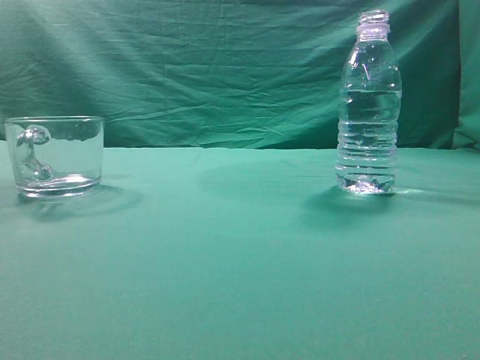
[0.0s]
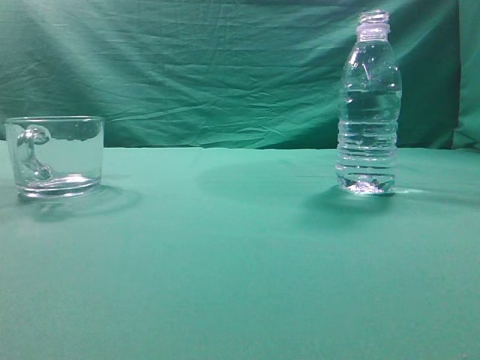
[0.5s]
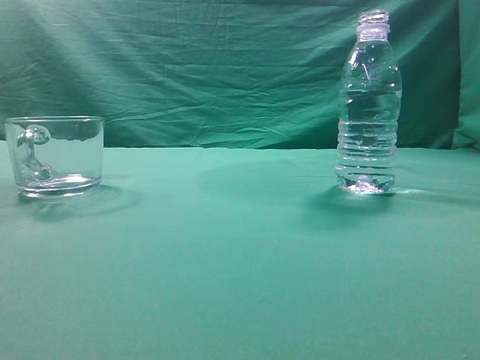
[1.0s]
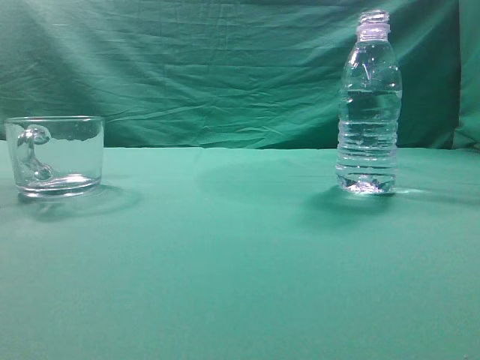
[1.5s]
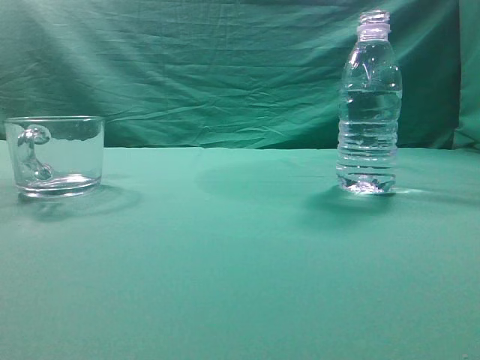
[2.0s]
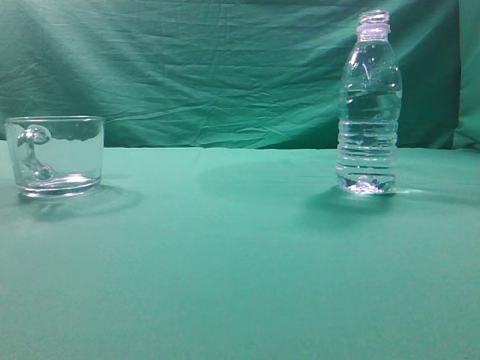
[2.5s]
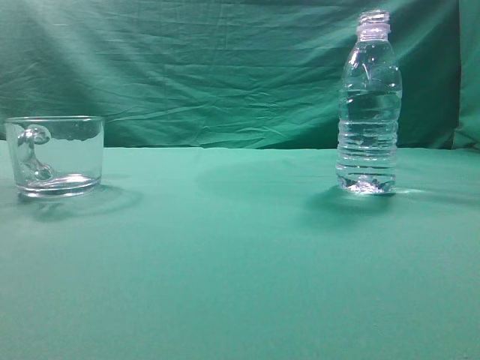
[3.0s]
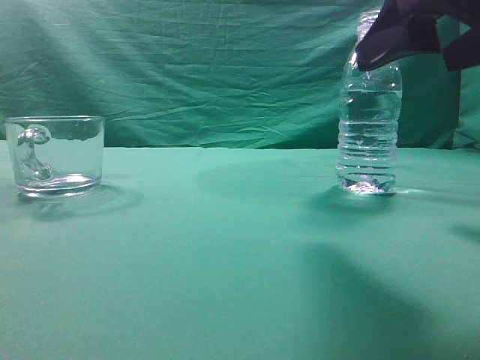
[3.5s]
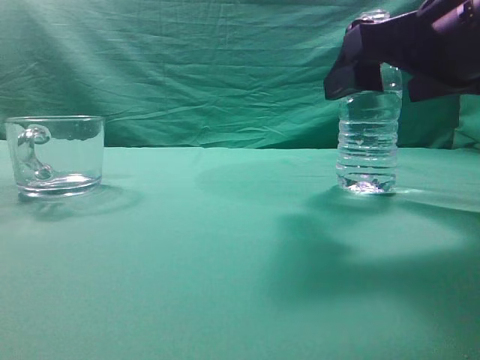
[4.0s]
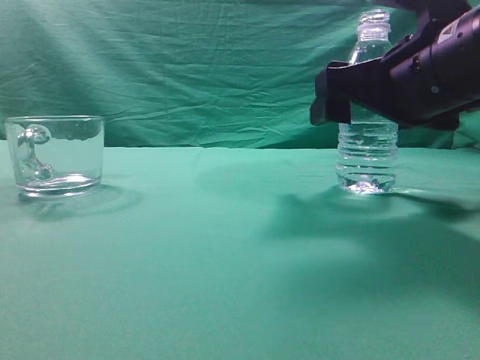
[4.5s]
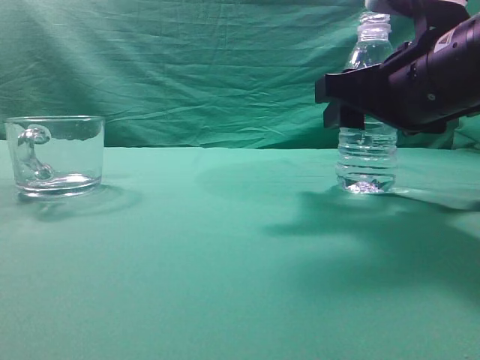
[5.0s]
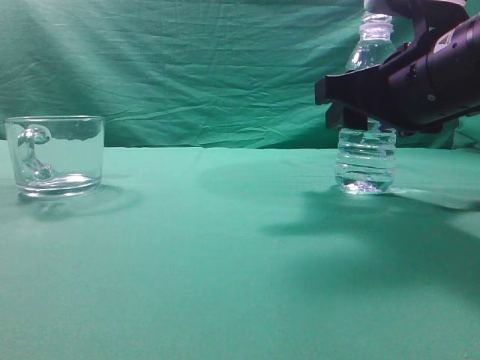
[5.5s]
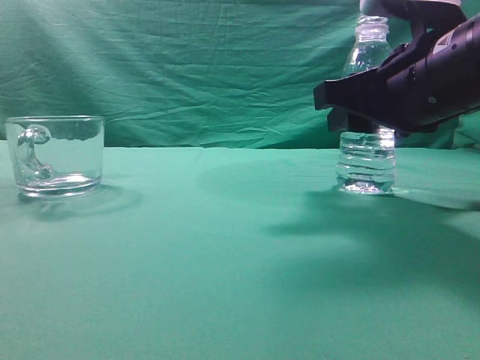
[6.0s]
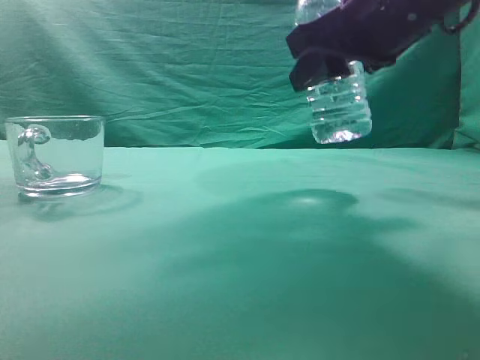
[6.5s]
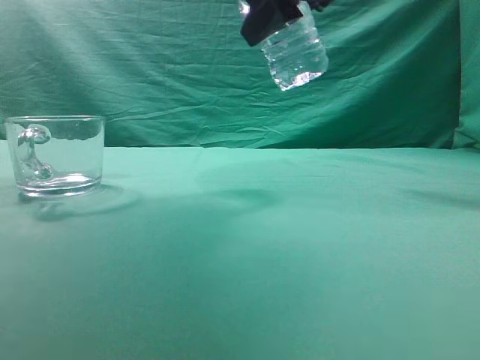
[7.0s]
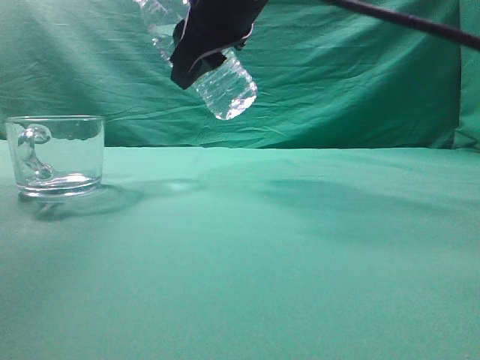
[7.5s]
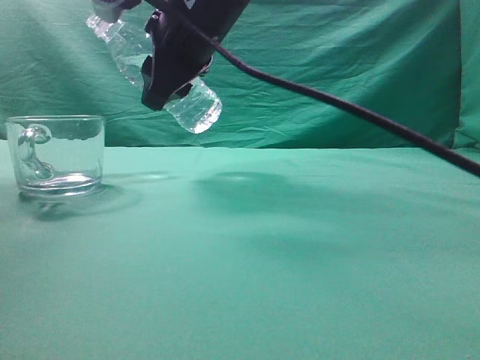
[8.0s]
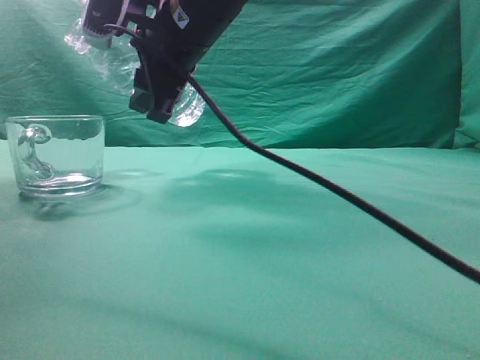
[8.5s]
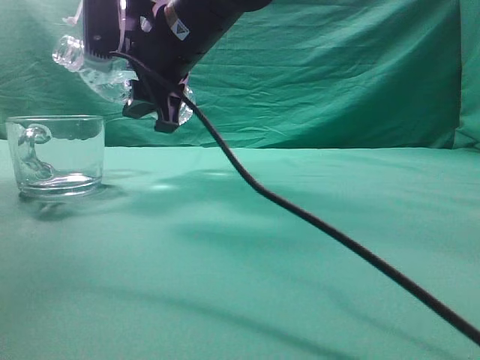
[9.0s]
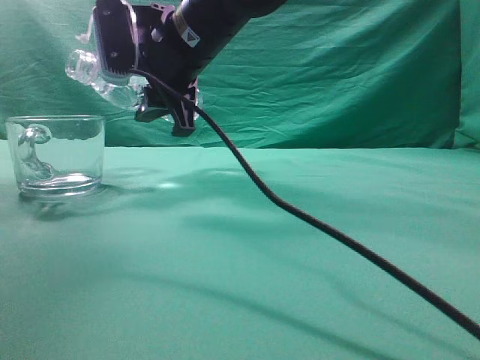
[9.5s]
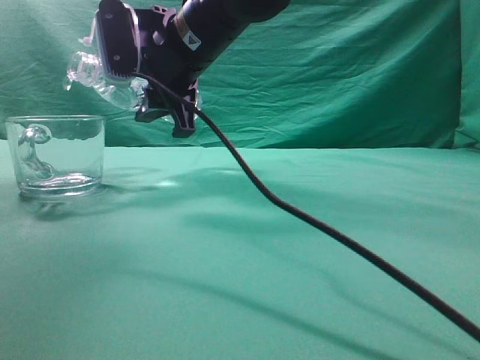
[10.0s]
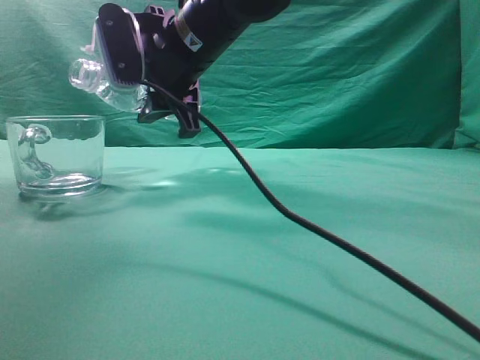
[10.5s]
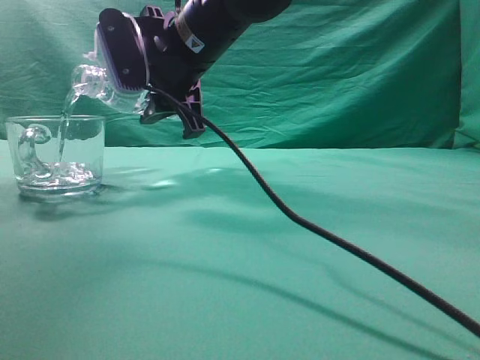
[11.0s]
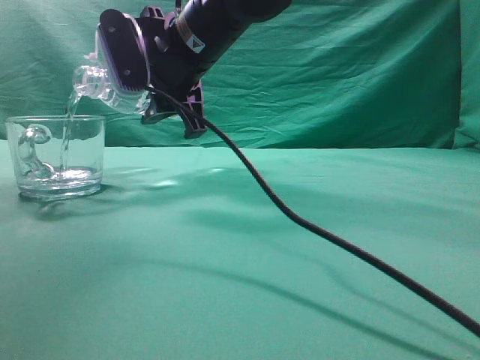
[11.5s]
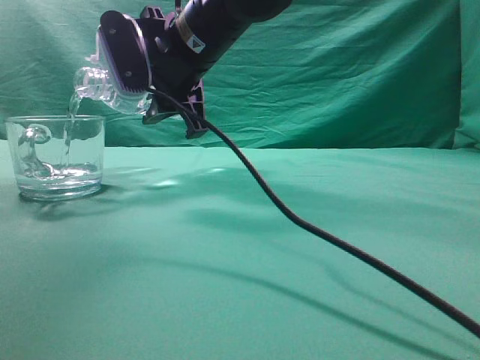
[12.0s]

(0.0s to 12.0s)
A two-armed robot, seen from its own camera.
Task of the whole recording: pick up the water bottle and pour the water in it into the glass.
Step, 0.0s - 6.0s: Grasp the mineral water bottle.
2.0s - 4.0s: The right gripper shifts some 25 cm forward and to the left, and opens its fingers.
4.0s - 6.0s: The right gripper ends up approximately 5 cm from where it was, and closes its fingers.
6.0s - 8.0s: The right gripper shifts approximately 20 cm to the left, forward and upward.
10.0s - 12.0s: The grippers move only a little.

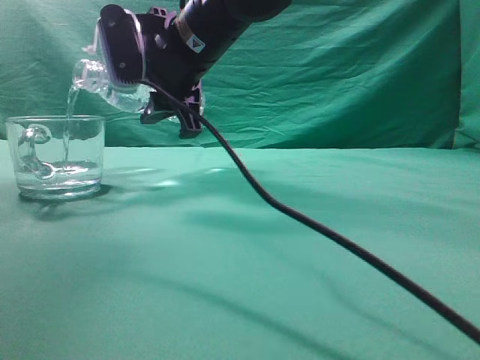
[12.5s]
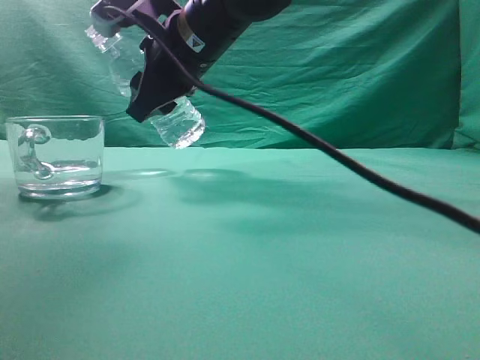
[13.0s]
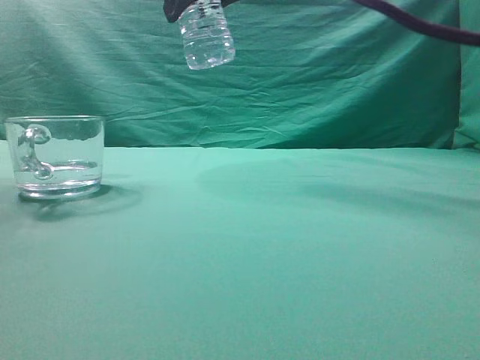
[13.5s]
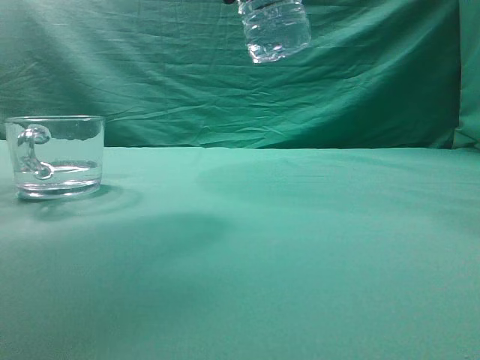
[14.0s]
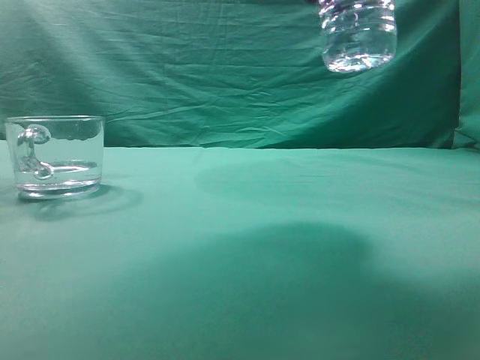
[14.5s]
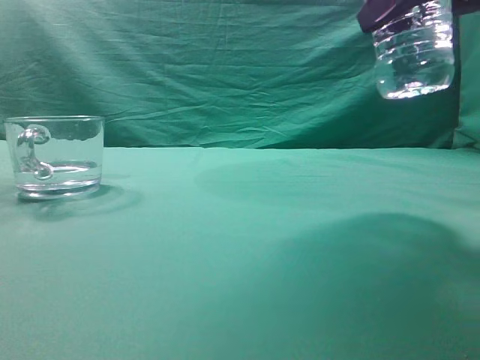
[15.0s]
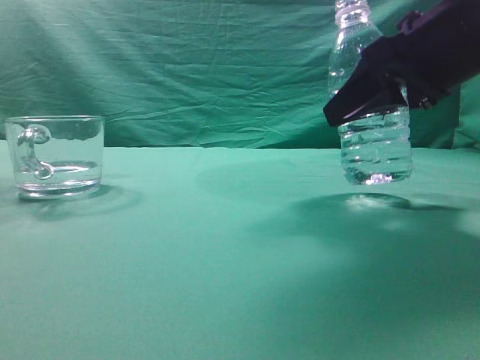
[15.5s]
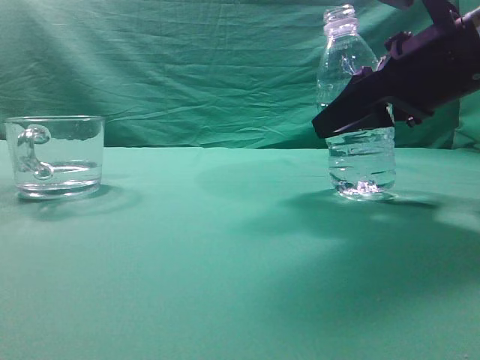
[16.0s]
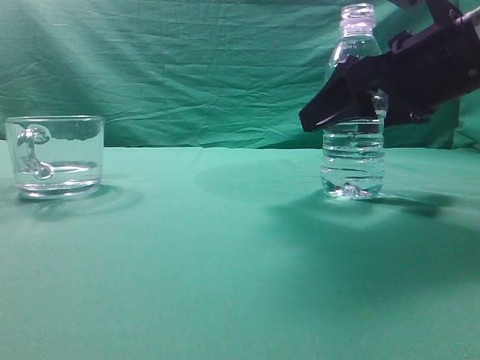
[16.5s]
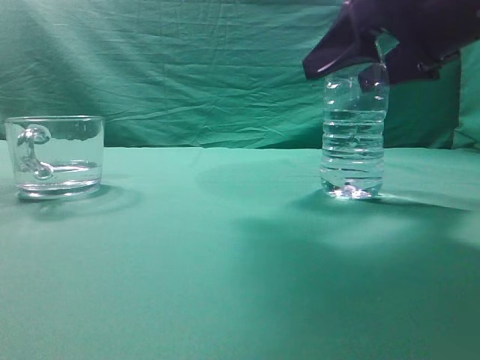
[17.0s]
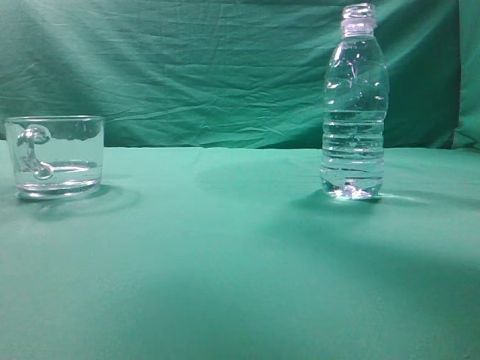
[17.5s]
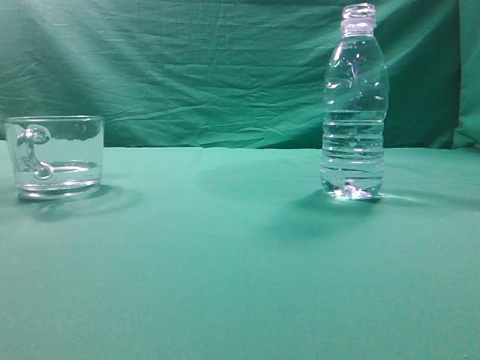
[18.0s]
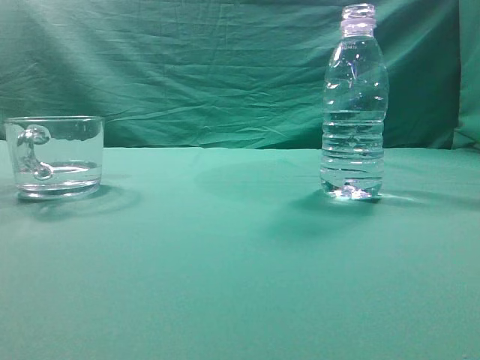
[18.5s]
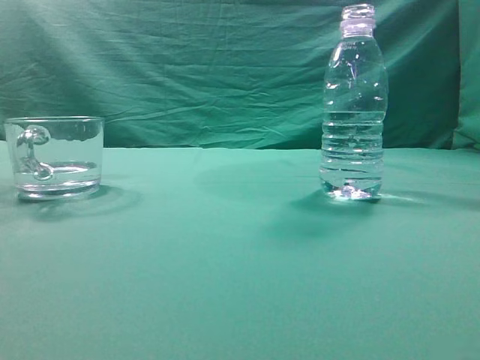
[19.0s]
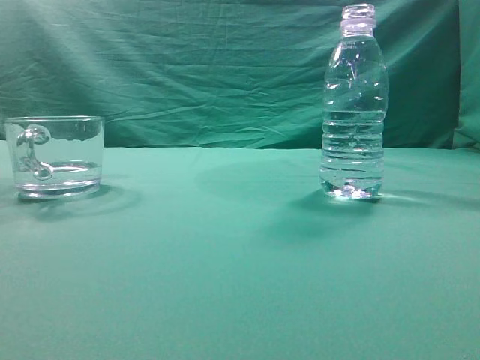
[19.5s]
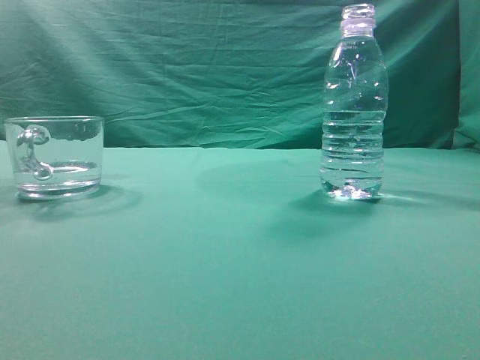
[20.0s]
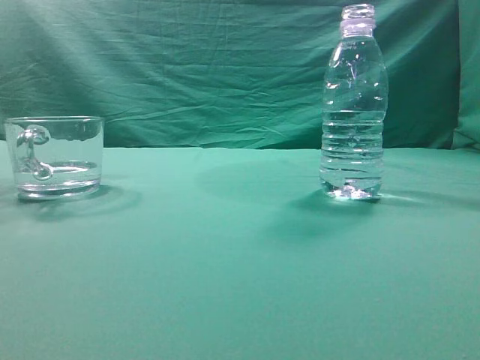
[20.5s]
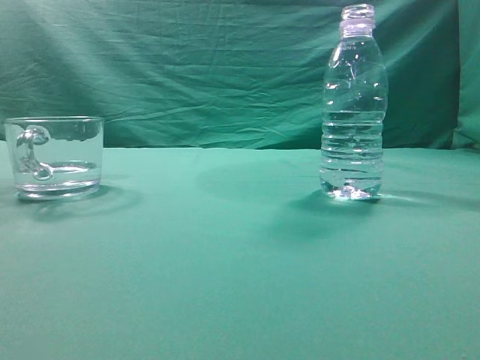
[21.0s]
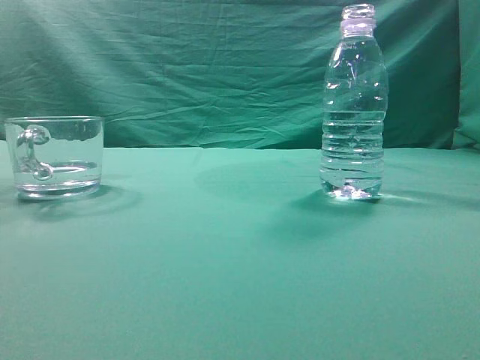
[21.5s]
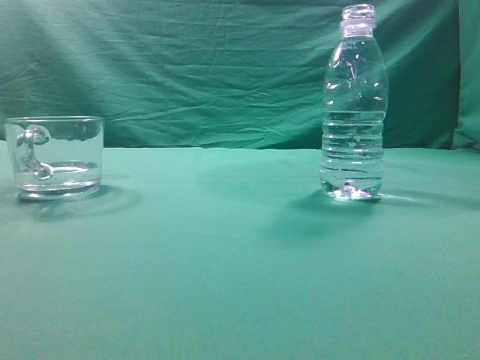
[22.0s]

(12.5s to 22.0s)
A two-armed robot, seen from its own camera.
Task of the whole recording: pick up the water bottle and pour the water in it into the glass.
12.5s - 14.5s: The right gripper goes roughly 25 cm to the right, backward and upward.
14.5s - 16.5s: The right gripper shifts approximately 15 cm downward and forward, and opens.
16.5s - 18.0s: The right gripper goes about 25 cm upward and backward, and closes its fingers.
